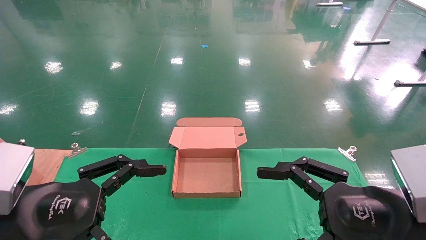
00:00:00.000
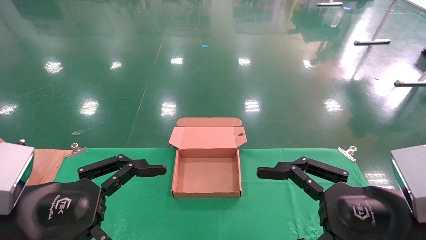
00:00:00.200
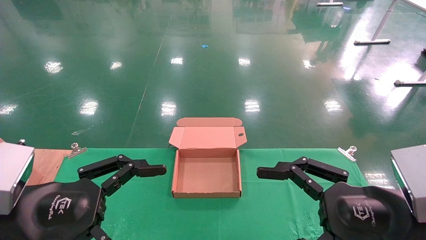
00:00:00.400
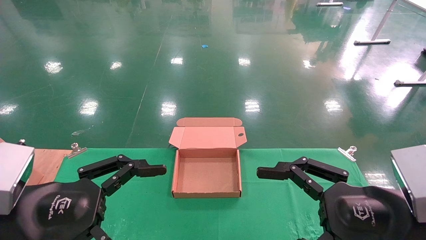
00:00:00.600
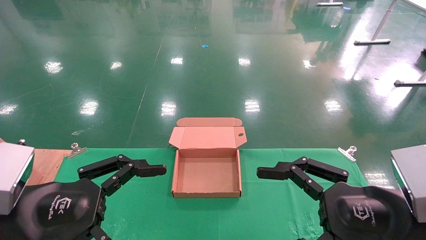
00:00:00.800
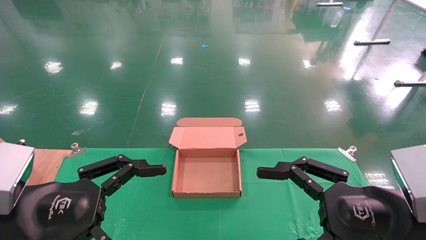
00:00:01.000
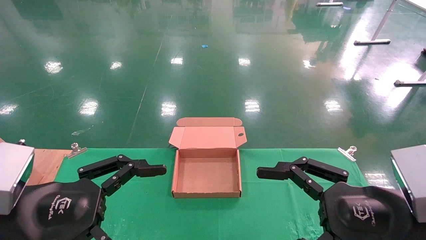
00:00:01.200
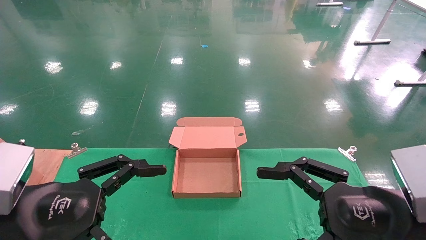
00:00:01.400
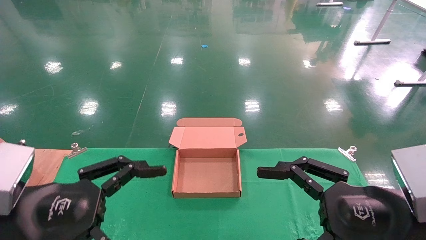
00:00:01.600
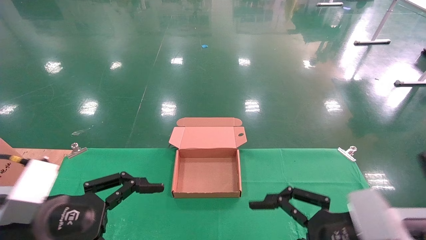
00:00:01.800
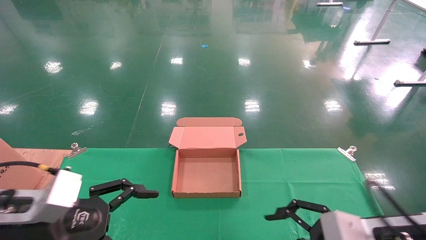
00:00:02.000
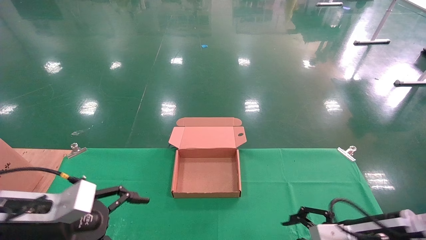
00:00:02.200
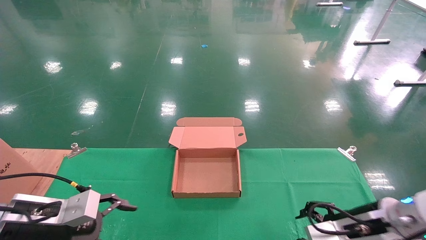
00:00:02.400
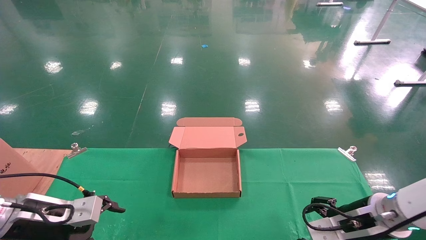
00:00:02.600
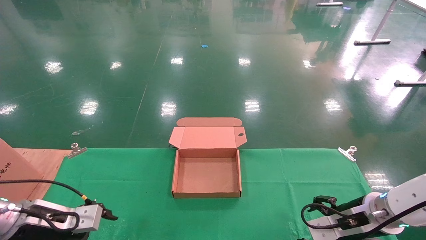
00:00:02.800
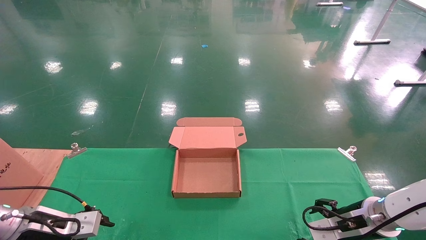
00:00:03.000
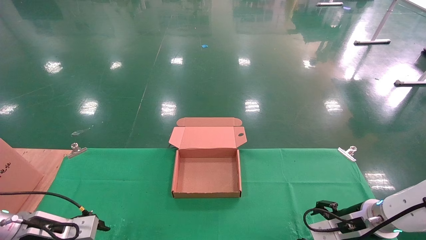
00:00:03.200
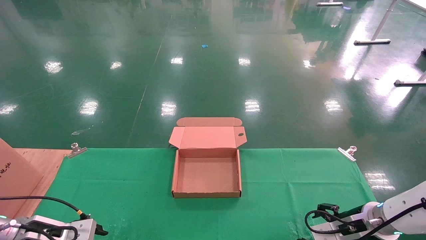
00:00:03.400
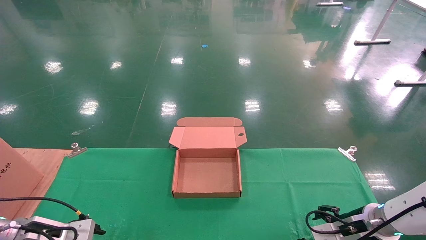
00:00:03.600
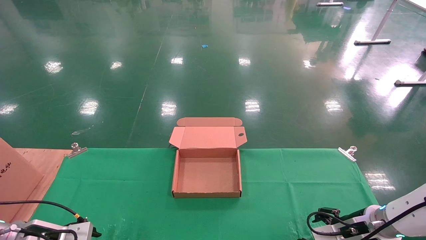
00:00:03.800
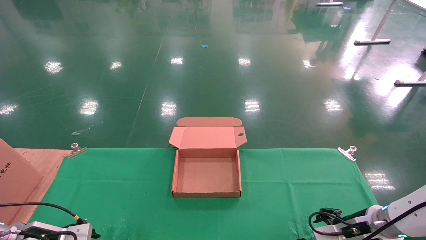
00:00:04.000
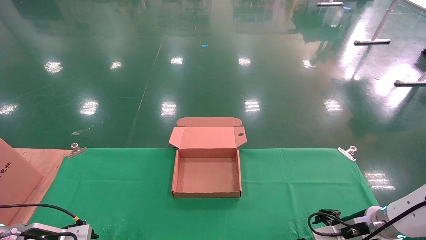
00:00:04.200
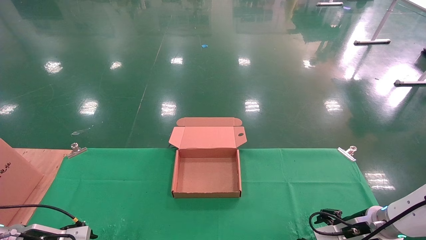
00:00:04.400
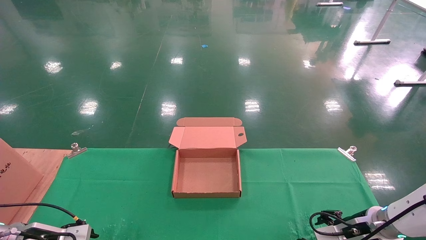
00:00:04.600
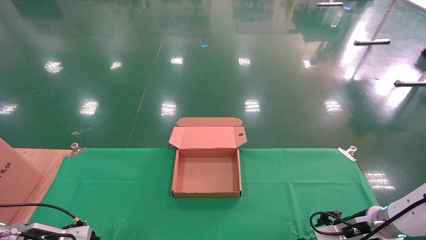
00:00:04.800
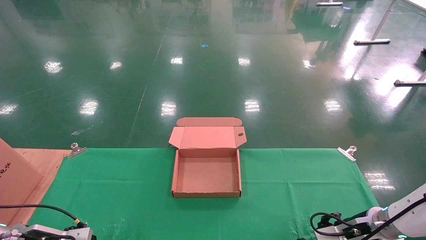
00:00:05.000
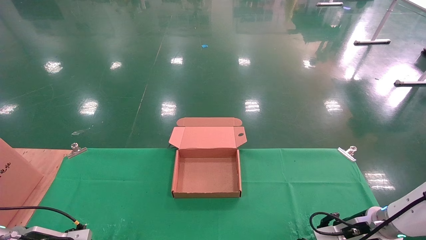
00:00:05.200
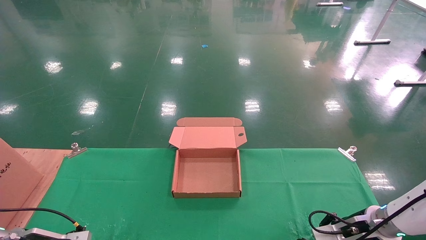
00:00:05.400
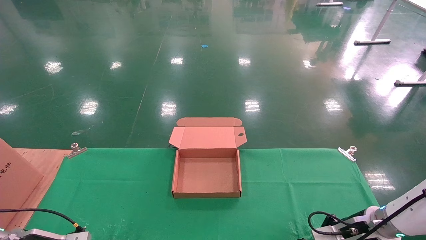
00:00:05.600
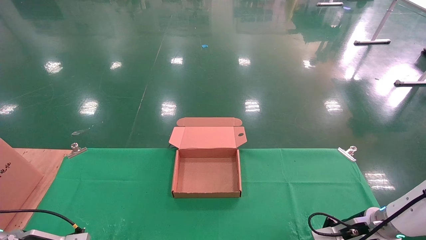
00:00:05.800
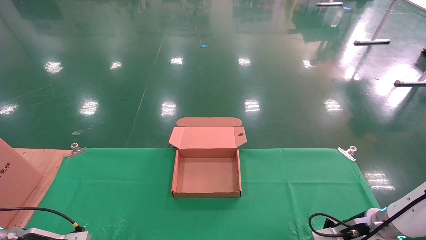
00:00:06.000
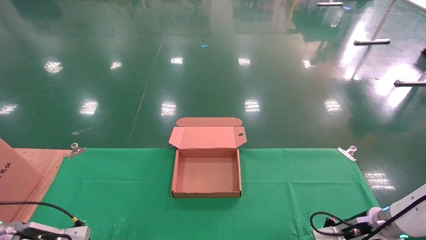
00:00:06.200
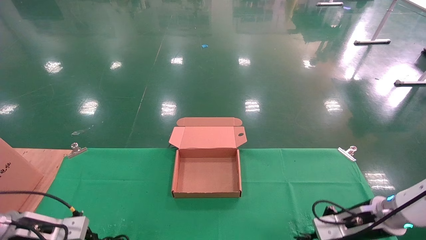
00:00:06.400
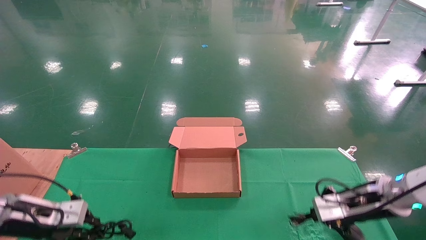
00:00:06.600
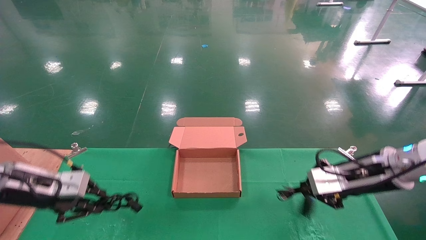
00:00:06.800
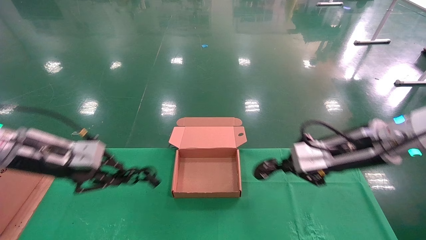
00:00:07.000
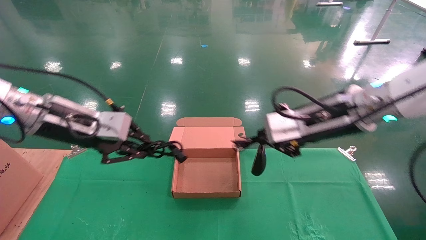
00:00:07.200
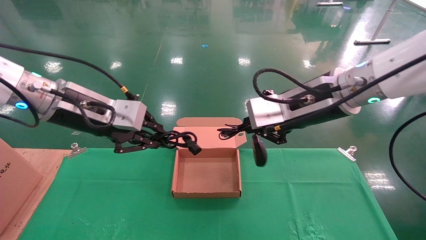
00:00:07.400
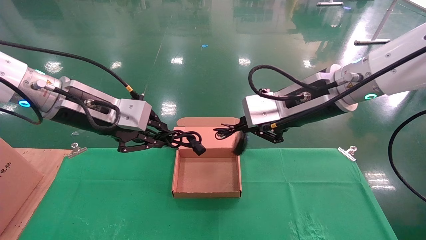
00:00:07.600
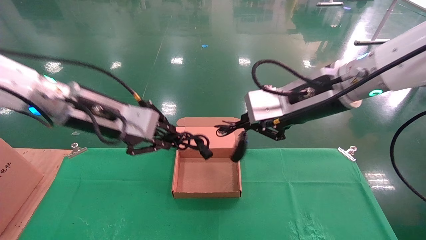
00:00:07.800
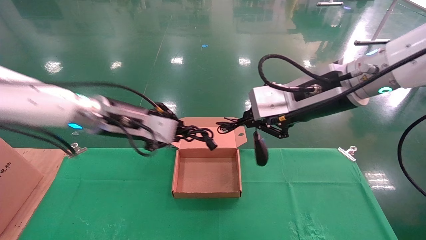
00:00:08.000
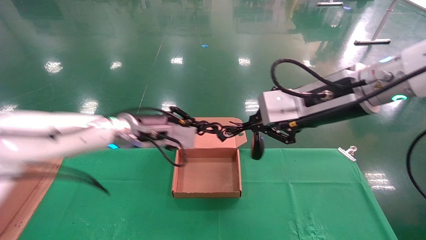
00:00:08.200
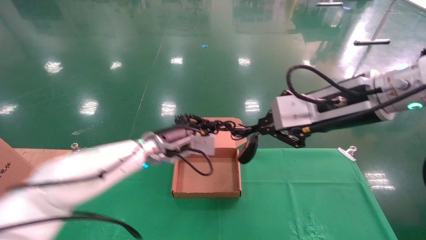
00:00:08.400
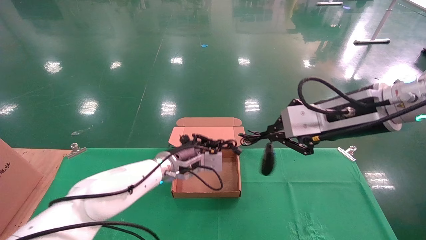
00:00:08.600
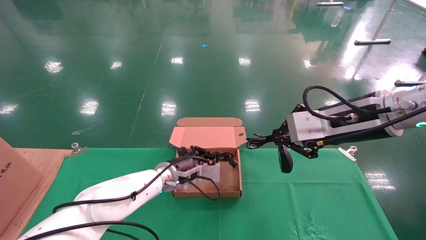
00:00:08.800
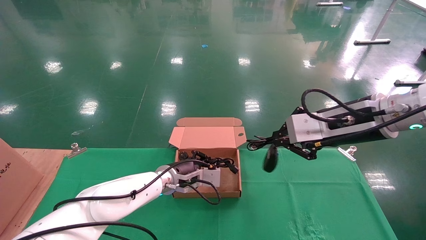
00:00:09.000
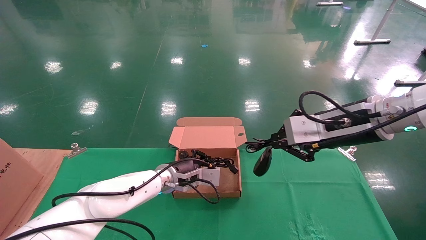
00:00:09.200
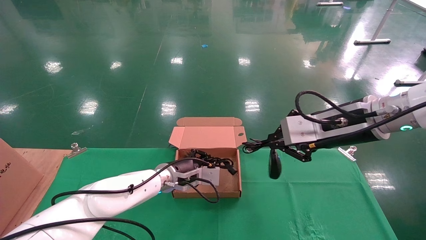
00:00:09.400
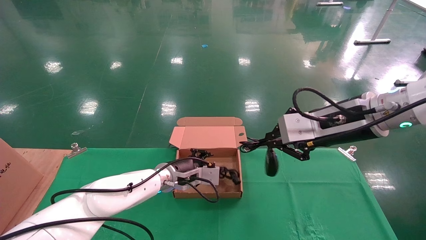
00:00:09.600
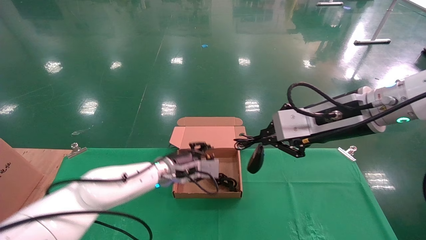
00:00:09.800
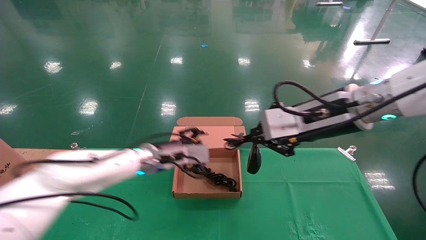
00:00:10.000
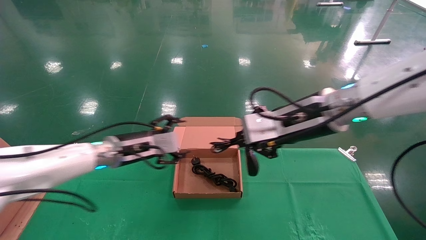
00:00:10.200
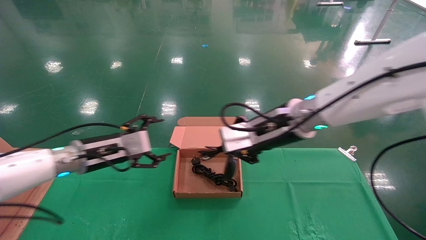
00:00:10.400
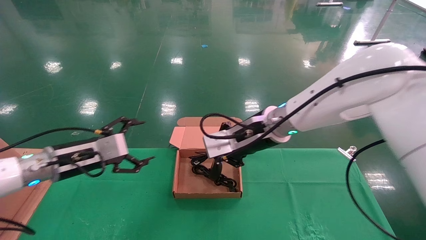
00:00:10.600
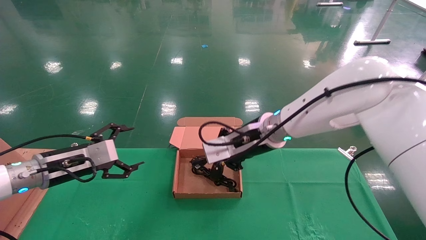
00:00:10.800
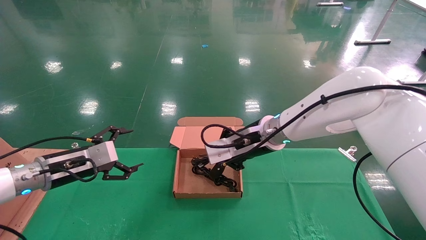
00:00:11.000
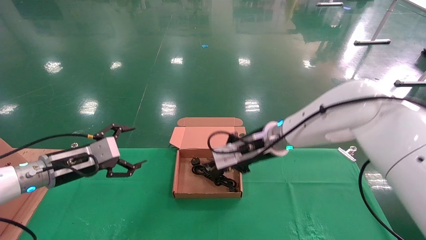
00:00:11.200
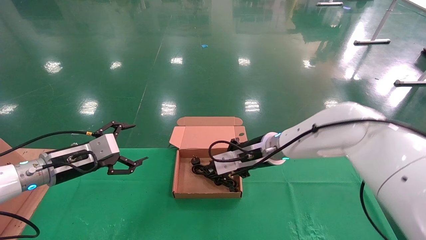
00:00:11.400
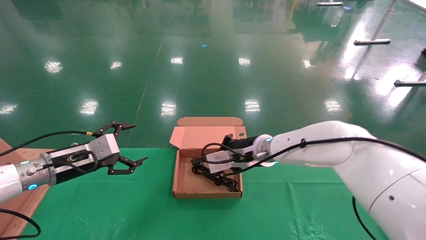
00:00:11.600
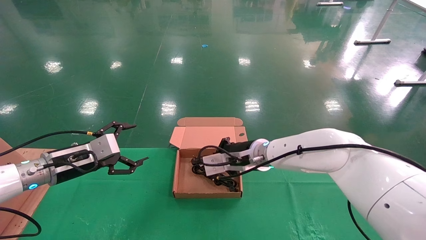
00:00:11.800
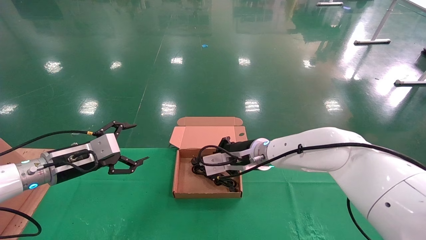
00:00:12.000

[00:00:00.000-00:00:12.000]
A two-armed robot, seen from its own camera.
Step, 00:00:01.400 to 00:00:06.600: Grab and lift both the mouse and power cord from the accessory packaging area at the same time.
00:00:00.000 to 00:00:01.600: The two grippers keep their place.
00:00:01.600 to 00:00:03.000: The left gripper shifts about 20 cm forward, downward and to the left. Meanwhile the right gripper goes roughly 20 cm forward and downward.
00:00:03.000 to 00:00:04.400: The left gripper moves downward, some 5 cm.
00:00:04.400 to 00:00:06.000: The right gripper closes. The left gripper closes up.
00:00:06.000 to 00:00:07.600: The left gripper goes roughly 35 cm upward and to the right, while the right gripper goes about 35 cm upward and to the left.
00:00:07.600 to 00:00:09.000: The right gripper goes some 5 cm to the right. The left gripper is displaced downward, forward and to the right by approximately 30 cm.
00:00:09.000 to 00:00:10.400: The right gripper heads to the left, covering approximately 10 cm, while the left gripper shifts about 20 cm to the left, upward and backward, and opens.
00:00:10.400 to 00:00:12.000: The right gripper moves downward and forward, approximately 15 cm; the left gripper shifts approximately 5 cm to the left.

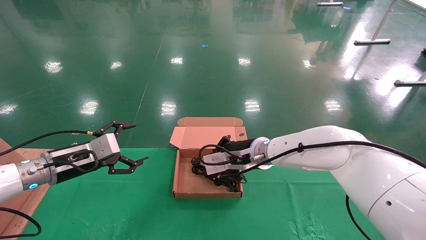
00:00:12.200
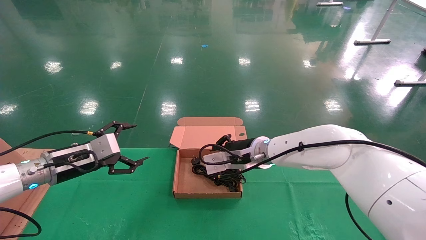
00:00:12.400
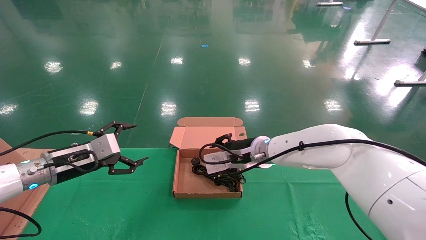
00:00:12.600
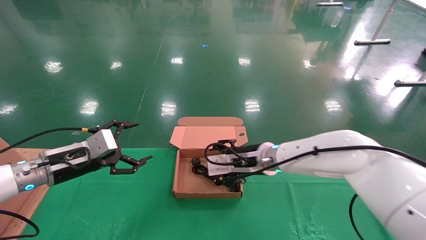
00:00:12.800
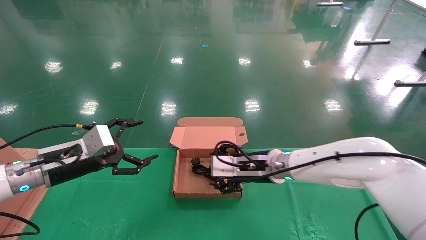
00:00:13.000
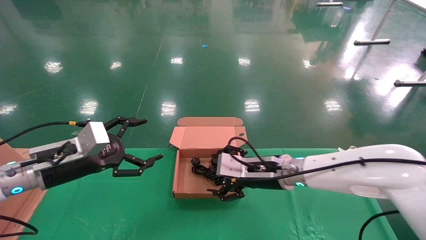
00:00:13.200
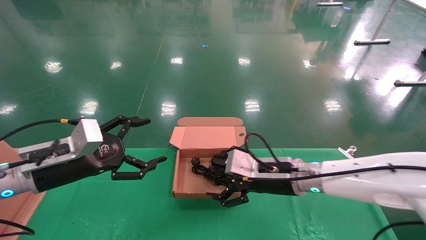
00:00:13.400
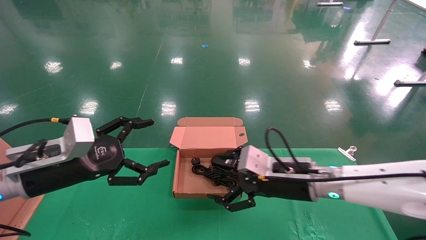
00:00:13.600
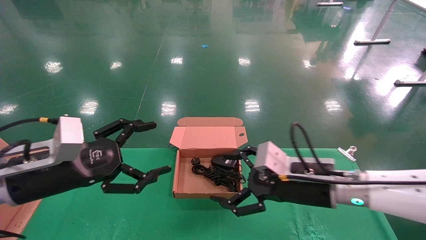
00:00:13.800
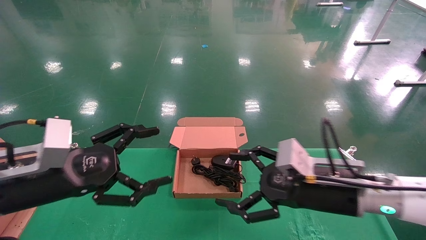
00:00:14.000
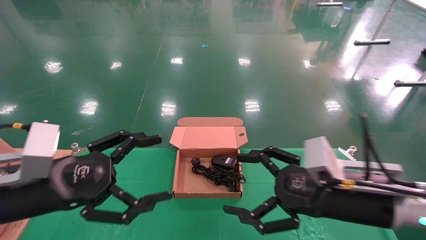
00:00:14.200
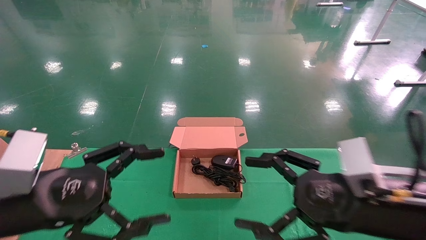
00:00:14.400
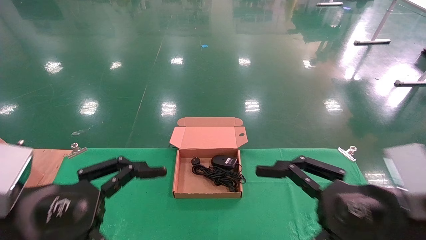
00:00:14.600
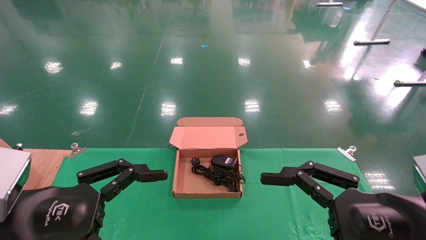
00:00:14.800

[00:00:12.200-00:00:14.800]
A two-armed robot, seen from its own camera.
00:00:12.200 to 00:00:13.400: The right gripper is displaced backward and to the right by some 10 cm, and opens; the left gripper goes about 5 cm backward.
00:00:13.400 to 00:00:14.800: The left gripper goes approximately 15 cm backward. The right gripper heads backward and to the right, covering some 25 cm.

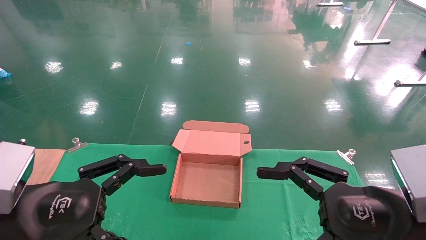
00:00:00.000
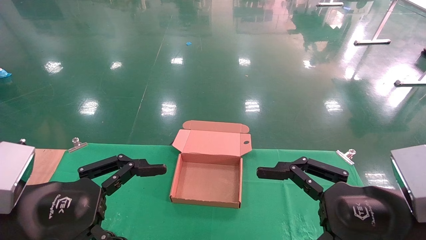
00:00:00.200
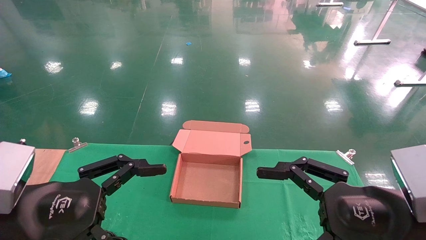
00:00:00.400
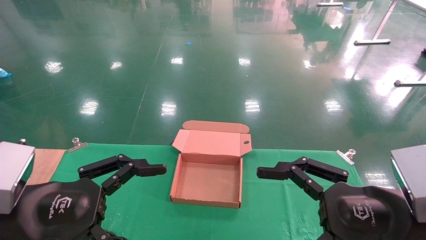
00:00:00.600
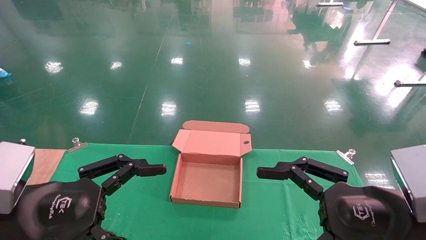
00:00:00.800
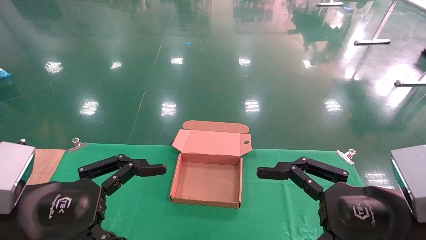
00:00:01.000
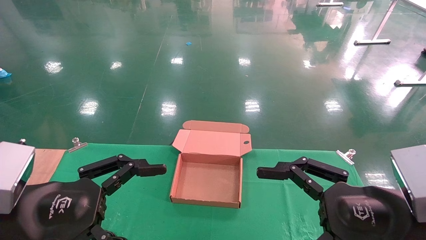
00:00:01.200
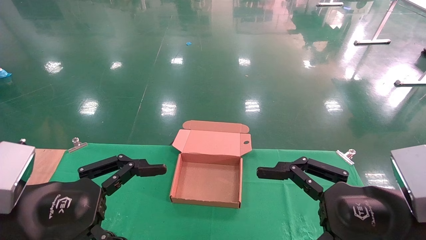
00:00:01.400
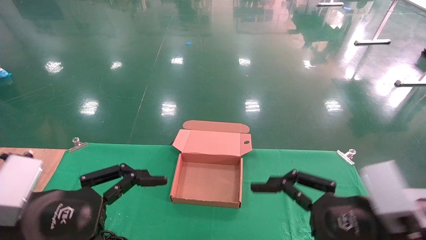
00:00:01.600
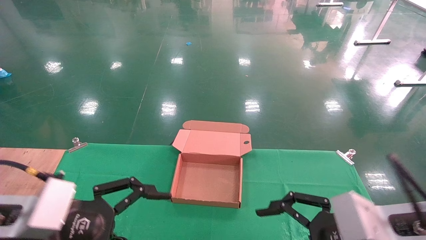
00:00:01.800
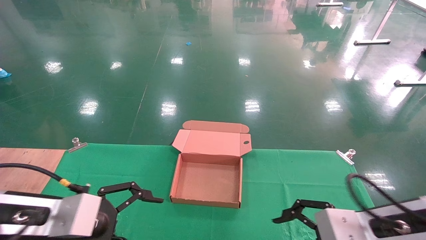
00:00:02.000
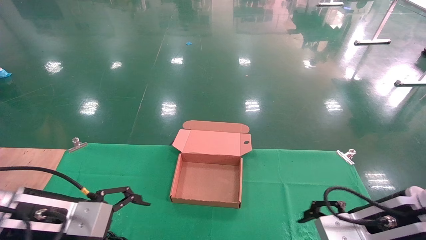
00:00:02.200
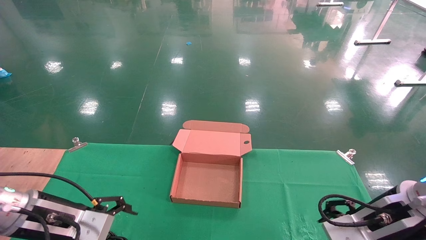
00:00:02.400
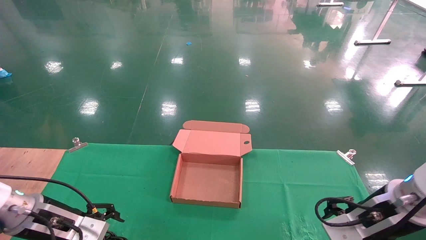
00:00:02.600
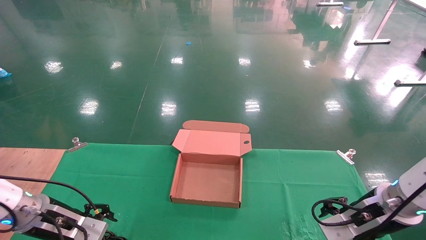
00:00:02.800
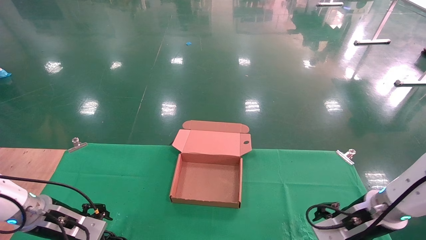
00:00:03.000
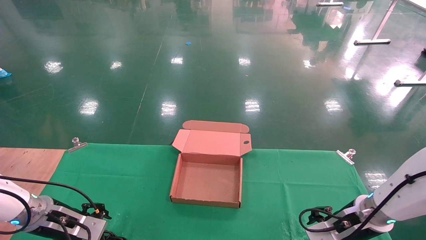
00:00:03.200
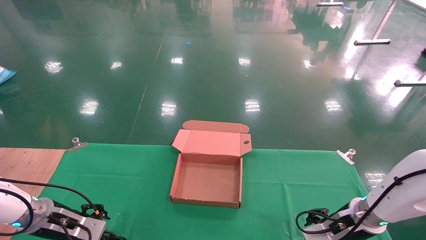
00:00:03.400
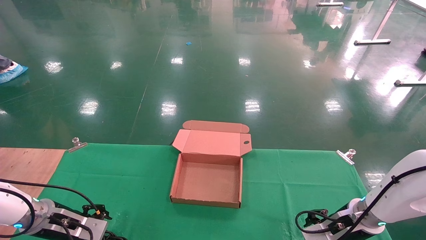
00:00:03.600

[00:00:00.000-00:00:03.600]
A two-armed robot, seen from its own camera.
00:00:01.800 to 00:00:03.600: The right gripper is displaced forward and downward by approximately 25 cm, while the left gripper goes some 25 cm forward, downward and to the left.
